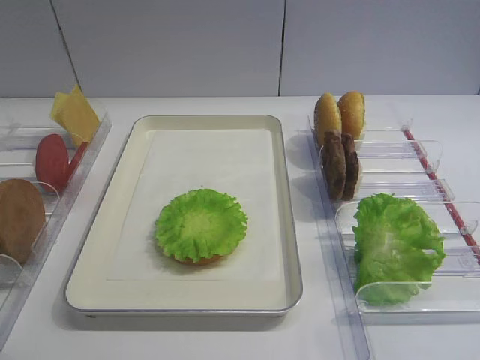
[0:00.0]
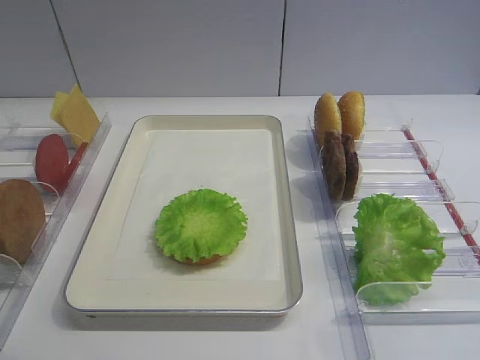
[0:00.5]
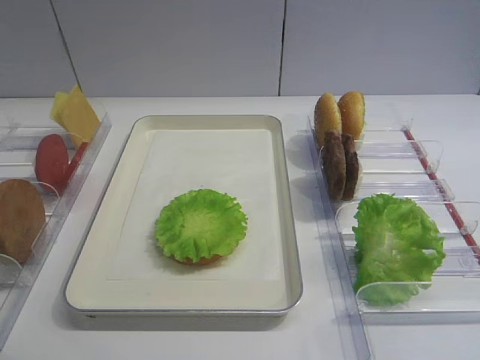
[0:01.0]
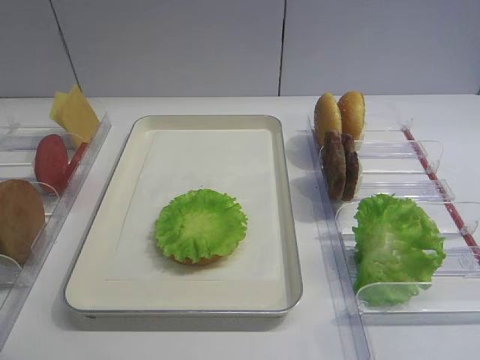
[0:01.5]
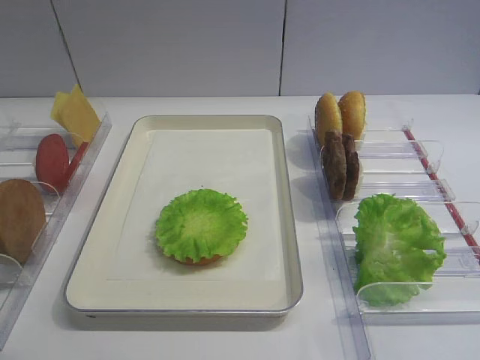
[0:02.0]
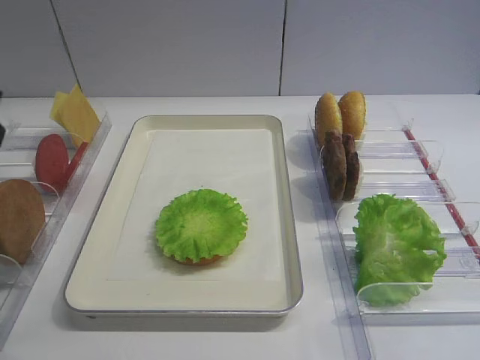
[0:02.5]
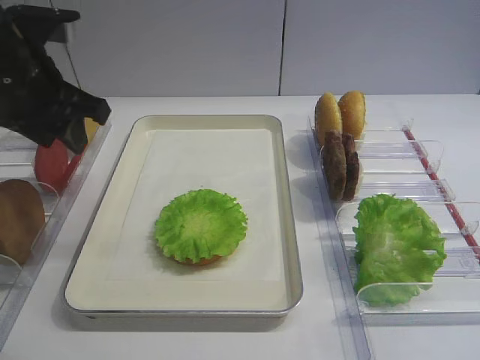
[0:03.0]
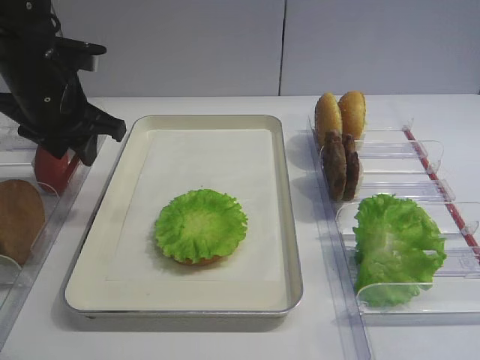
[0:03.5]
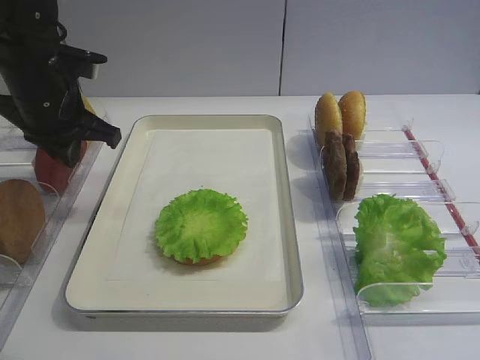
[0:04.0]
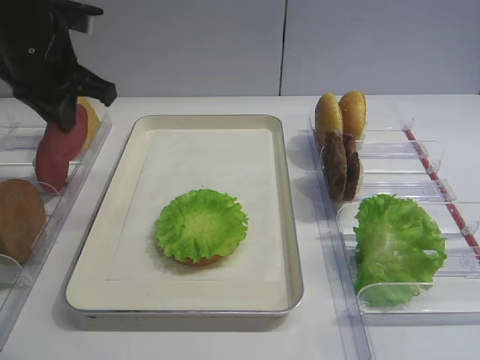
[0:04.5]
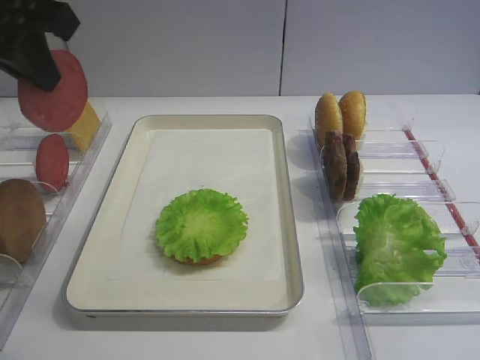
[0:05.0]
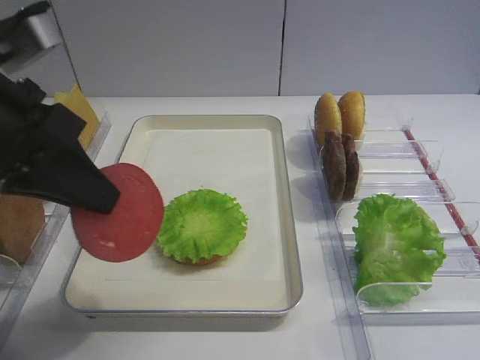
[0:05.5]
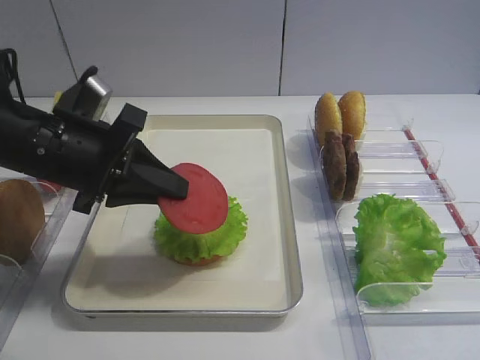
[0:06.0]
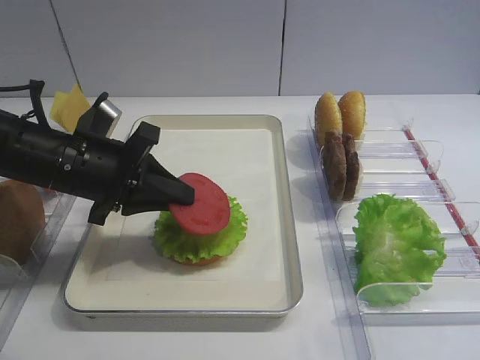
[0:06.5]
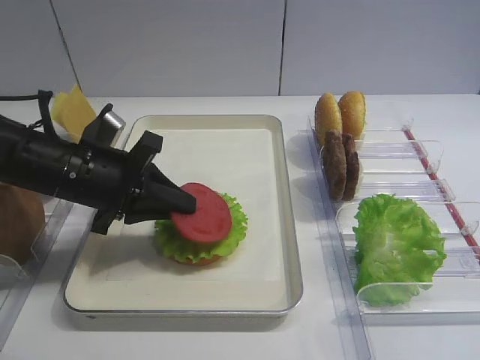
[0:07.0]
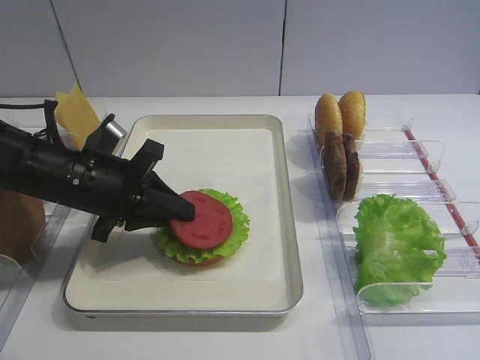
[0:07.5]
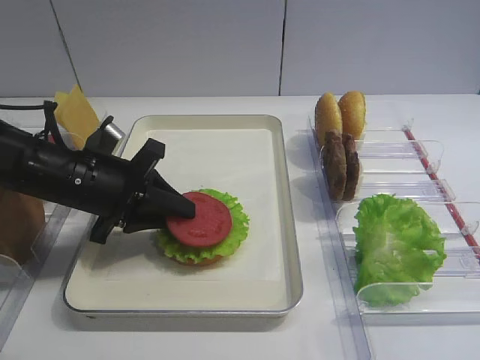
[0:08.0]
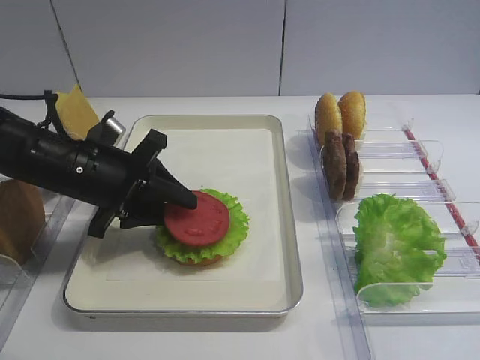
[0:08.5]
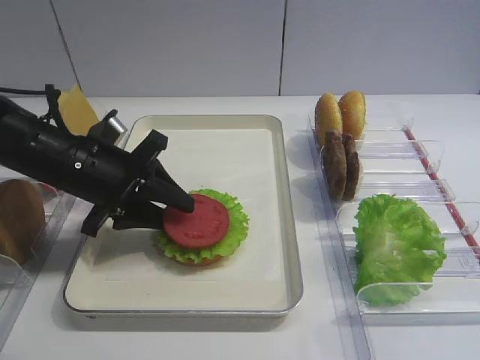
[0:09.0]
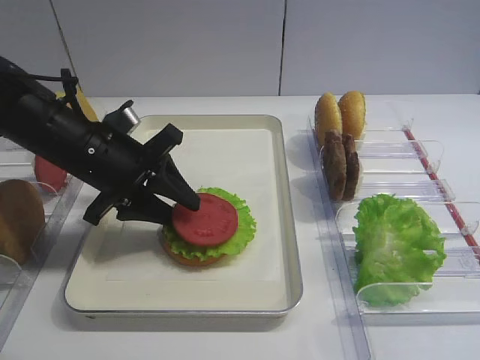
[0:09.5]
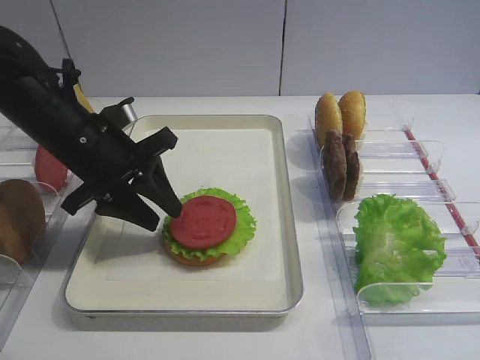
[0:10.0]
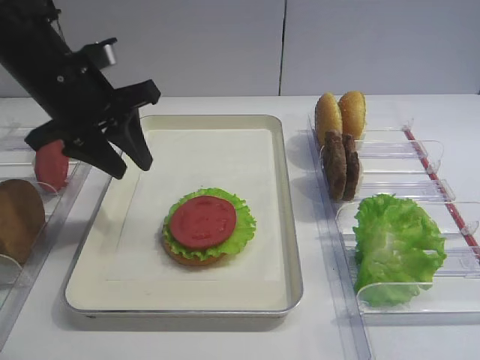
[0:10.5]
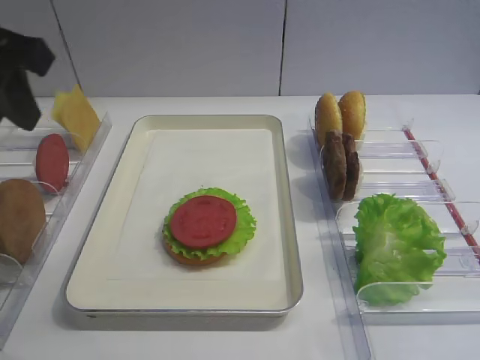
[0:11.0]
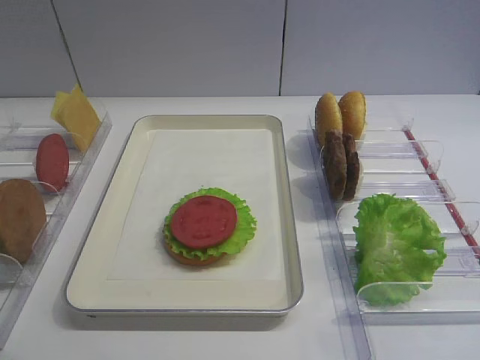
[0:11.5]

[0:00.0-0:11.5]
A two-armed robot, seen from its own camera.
Step, 0:00.0 to 0:04.0: Pick up the tomato slice with the left gripper.
Step, 0:04.5 to 0:10.0: Place the tomato slice on the lettuce leaf with the left gripper.
0:02.0 to 0:04.0: The left gripper goes about 30 cm forward, and closes.
0:04.0 to 0:06.0: The right gripper closes its fingers; the left gripper travels backward by roughly 10 cm, and moves about 15 cm upward and comes back.
0:06.0 to 0:07.5: The left gripper goes roughly 5 cm downward, while the right gripper closes up.
0:07.5 to 0:09.5: The left gripper opens its fingers.
0:09.5 to 0:11.5: The left gripper moves backward, upward and to the left, approximately 30 cm.

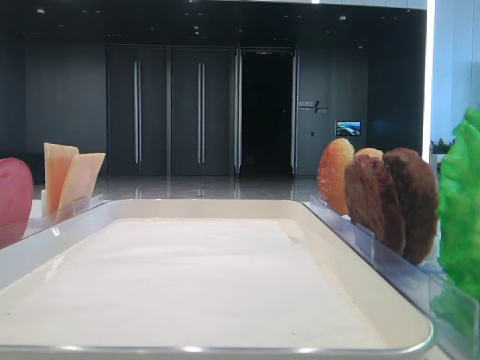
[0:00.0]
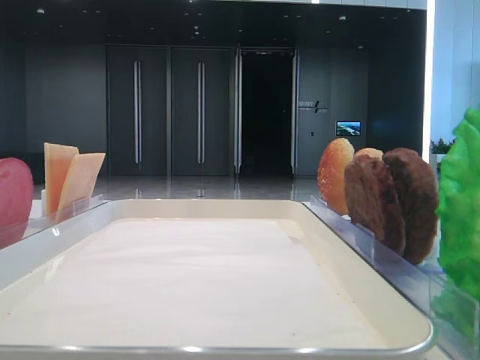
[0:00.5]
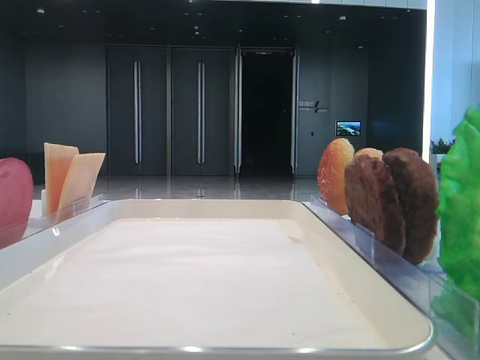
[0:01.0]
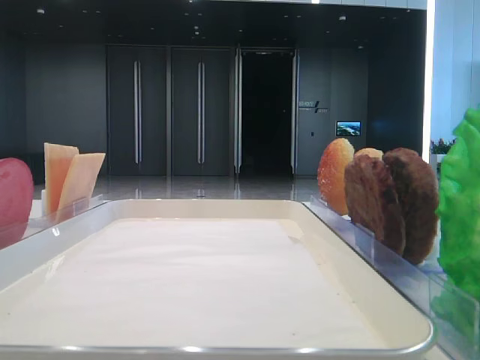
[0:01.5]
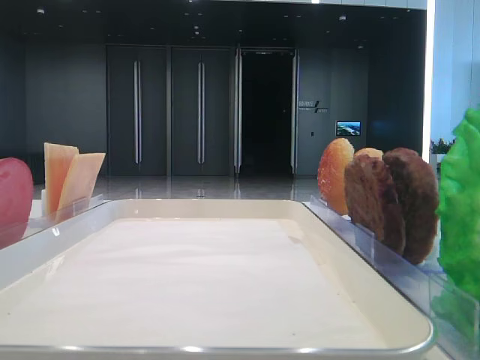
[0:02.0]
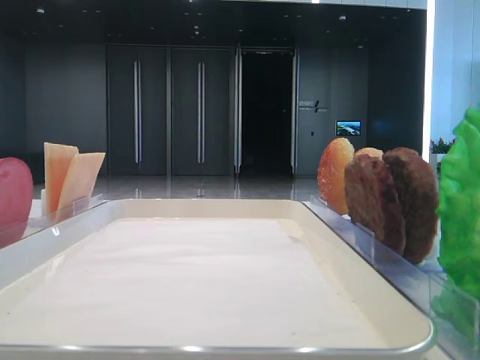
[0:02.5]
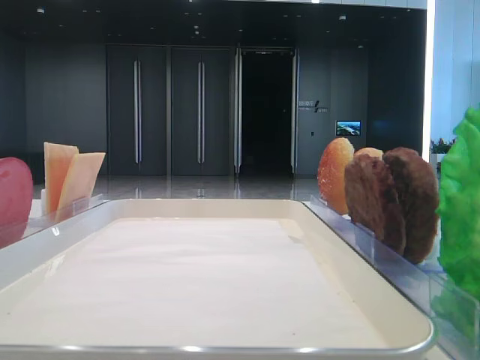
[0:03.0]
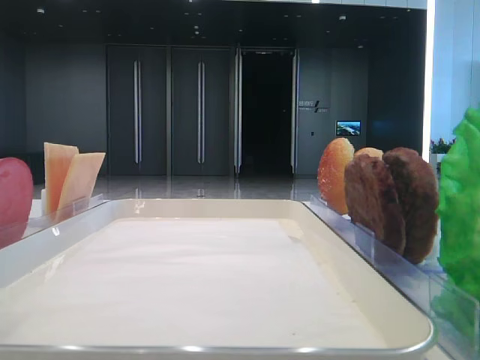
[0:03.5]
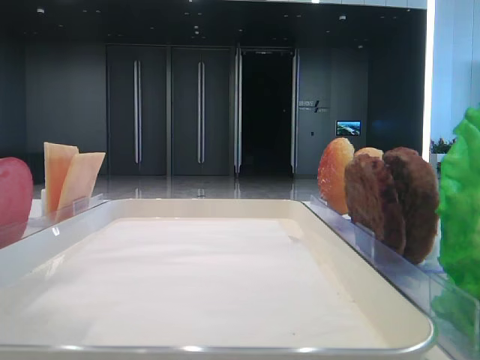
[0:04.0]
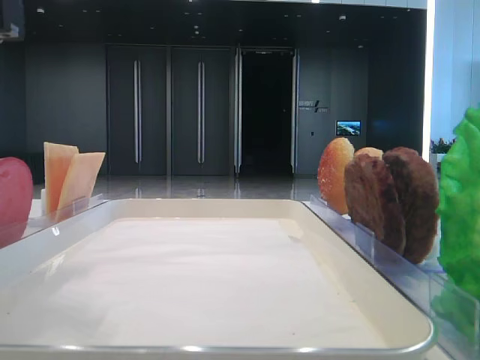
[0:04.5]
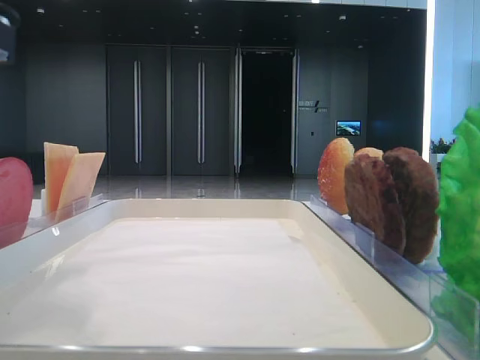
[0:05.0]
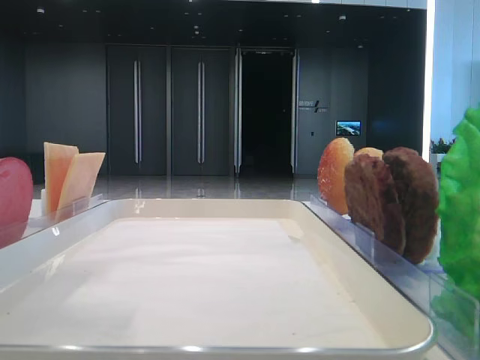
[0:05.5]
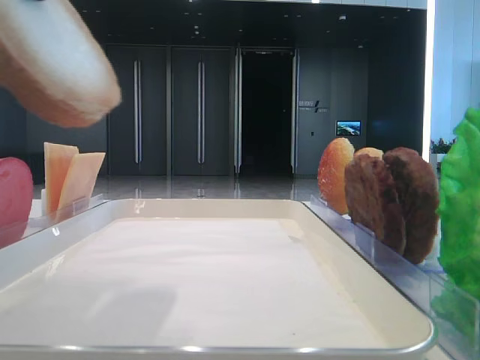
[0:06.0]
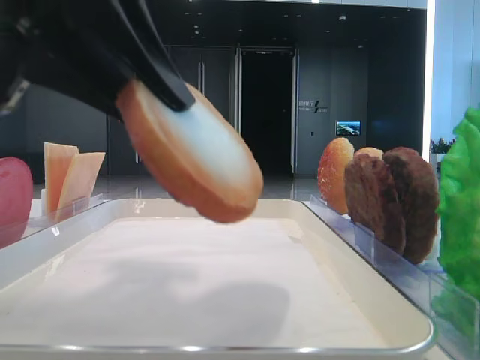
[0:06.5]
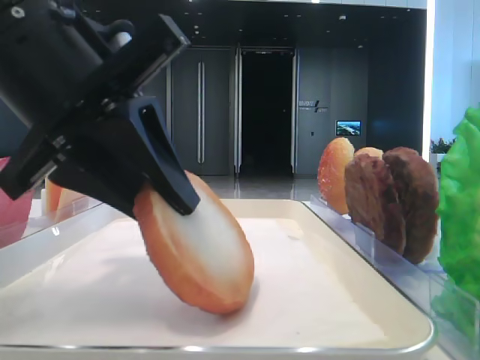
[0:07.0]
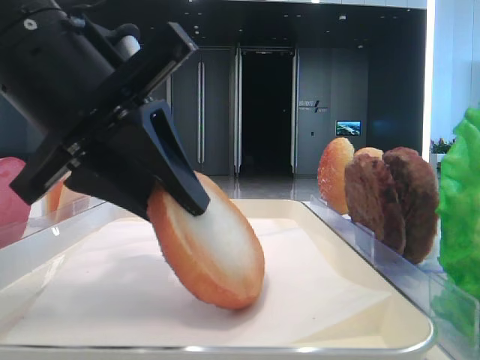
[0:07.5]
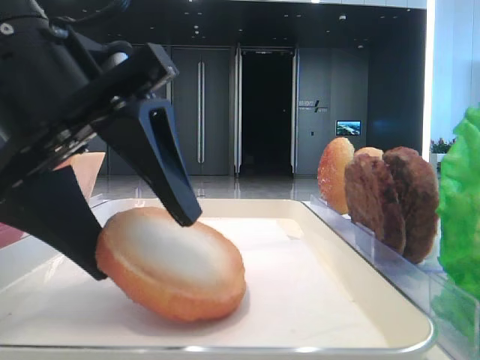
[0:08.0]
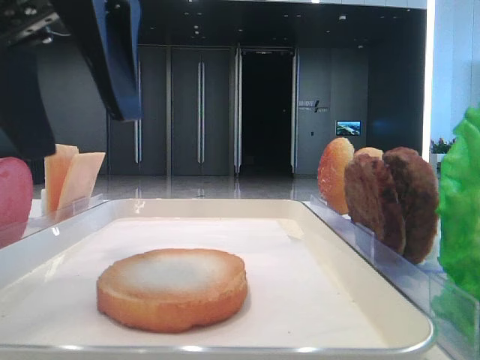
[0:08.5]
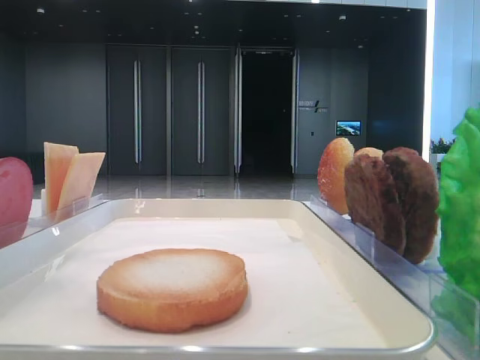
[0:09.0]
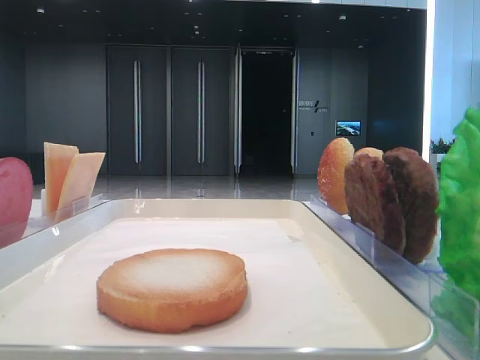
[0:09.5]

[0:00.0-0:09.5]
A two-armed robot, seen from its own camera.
Step, 0:00.0 to 0:05.0: Pick up the bottom bread with the left hand.
Step, 0:05.5 to 0:08.0: Place the bread on the tray with the left hand.
0:02.0 to 0:04.0: The left gripper travels forward and to the right by about 20 cm.
0:05.5 to 0:07.5: The left gripper moves downward and to the right, approximately 10 cm.
0:07.5 to 0:09.5: The left gripper shifts about 25 cm upward and to the left, and opens up.

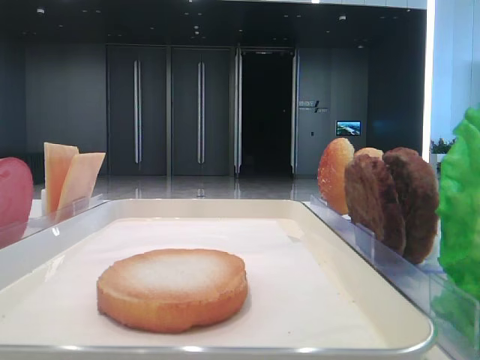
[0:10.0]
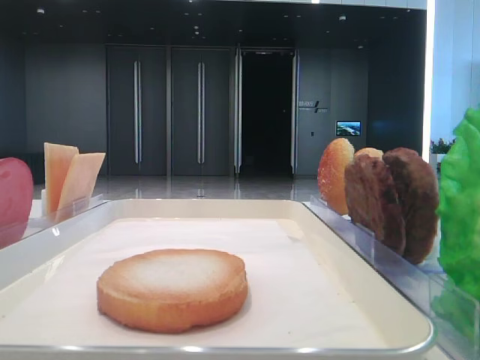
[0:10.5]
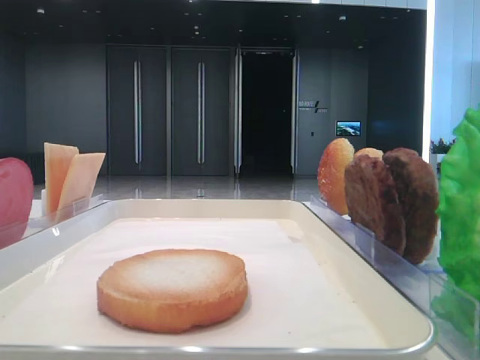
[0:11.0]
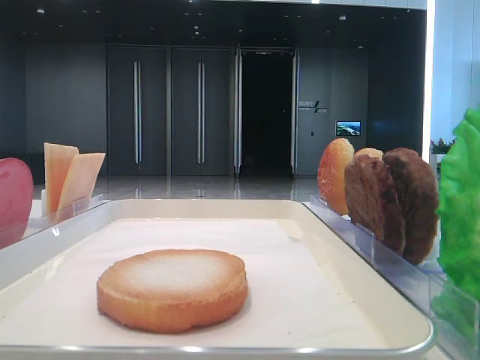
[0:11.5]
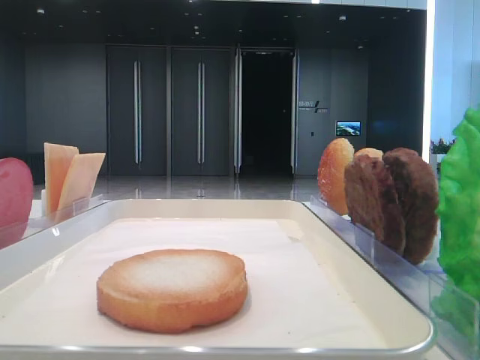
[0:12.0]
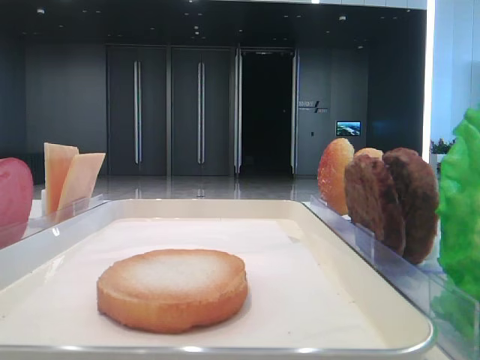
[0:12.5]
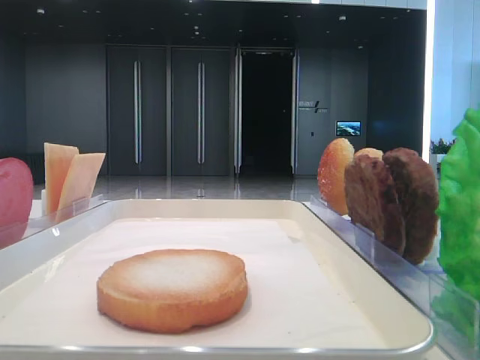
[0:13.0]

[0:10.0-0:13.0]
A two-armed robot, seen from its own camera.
0:11.5 to 0:13.0: The two grippers keep their place.

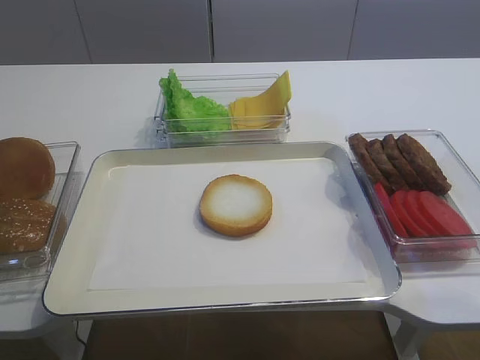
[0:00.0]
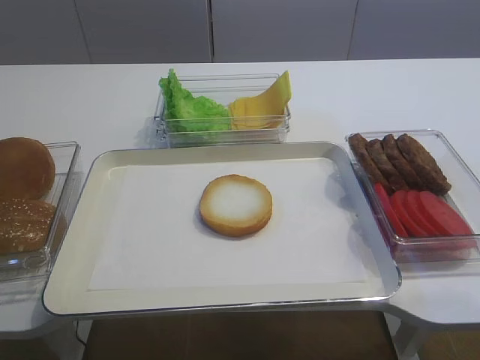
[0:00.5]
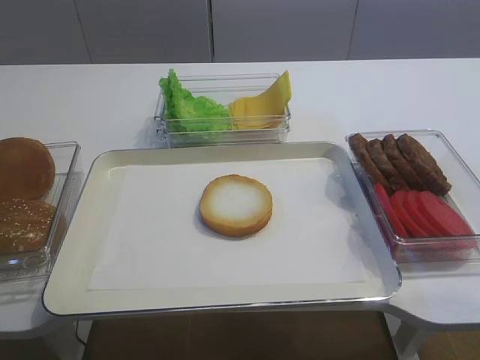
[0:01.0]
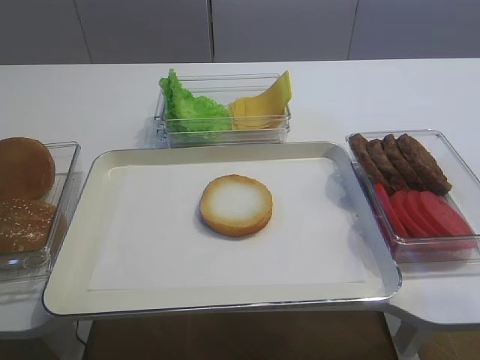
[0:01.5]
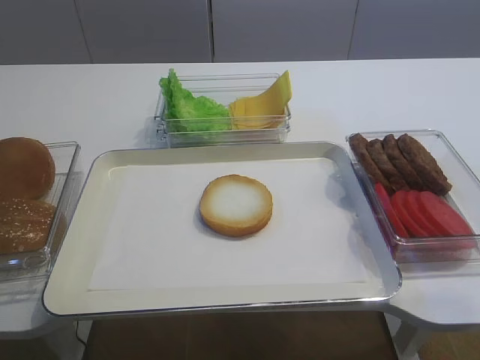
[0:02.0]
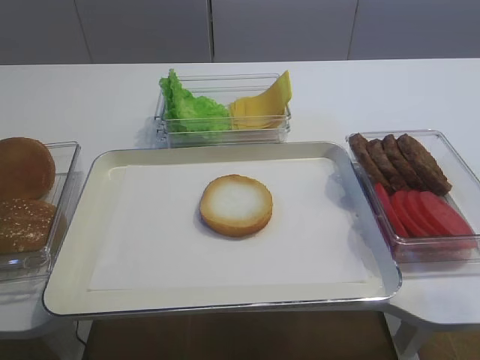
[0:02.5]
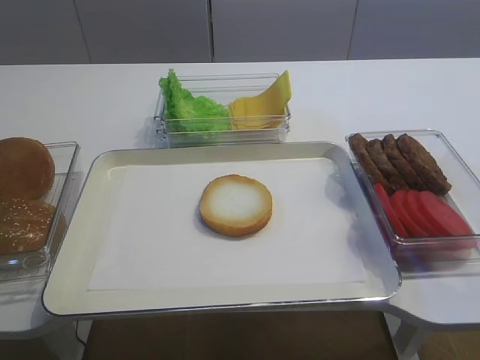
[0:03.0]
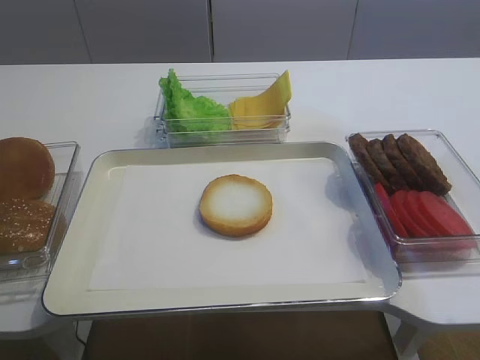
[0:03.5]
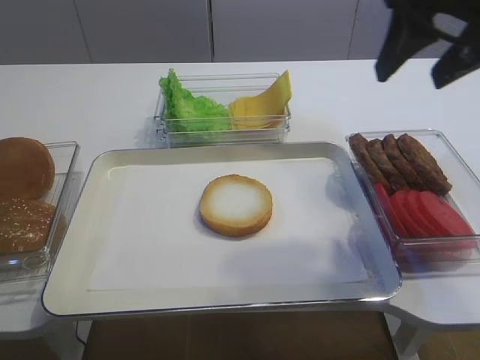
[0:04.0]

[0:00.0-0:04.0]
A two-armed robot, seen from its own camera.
0:02.0 to 0:04.0: The right gripper is displaced forward by about 30 cm.
